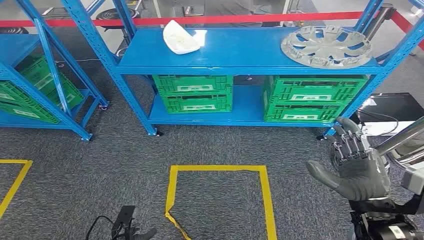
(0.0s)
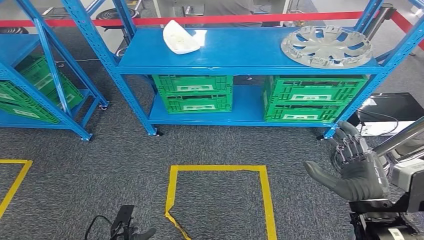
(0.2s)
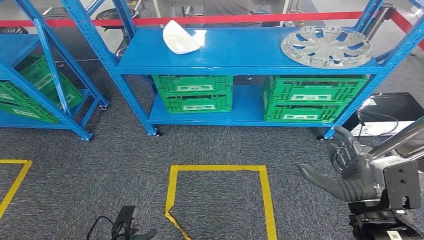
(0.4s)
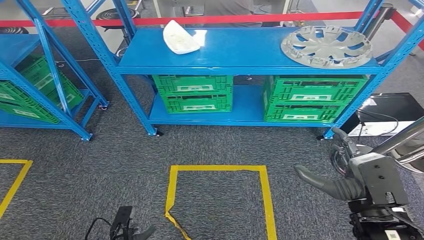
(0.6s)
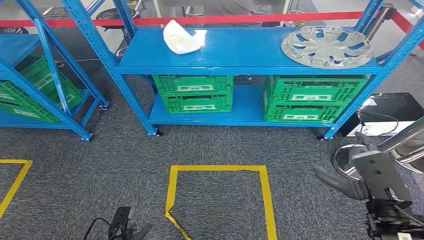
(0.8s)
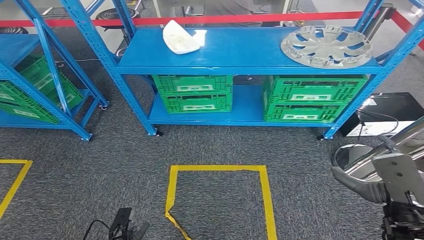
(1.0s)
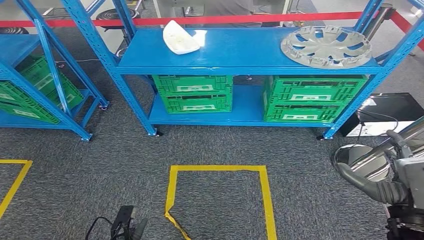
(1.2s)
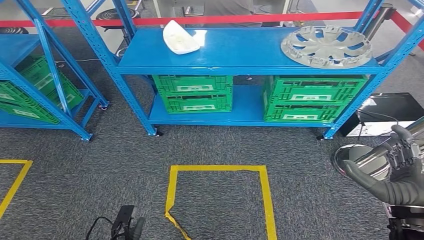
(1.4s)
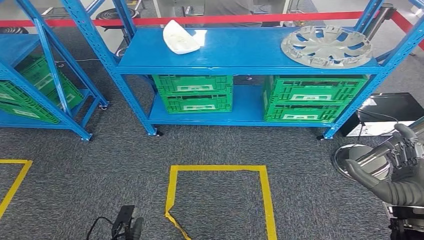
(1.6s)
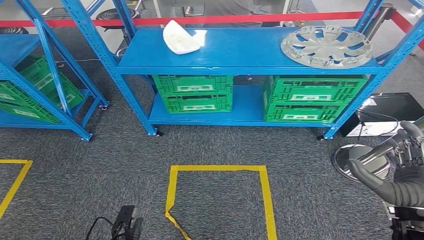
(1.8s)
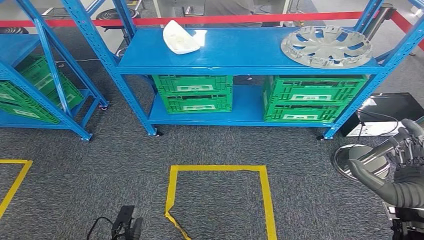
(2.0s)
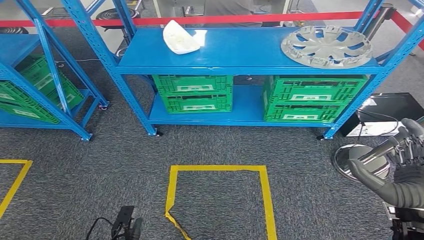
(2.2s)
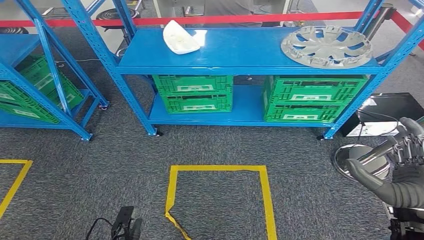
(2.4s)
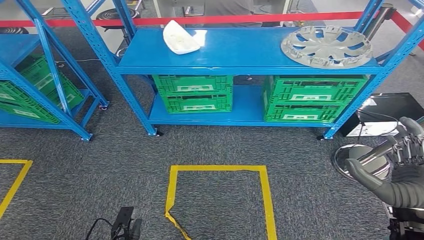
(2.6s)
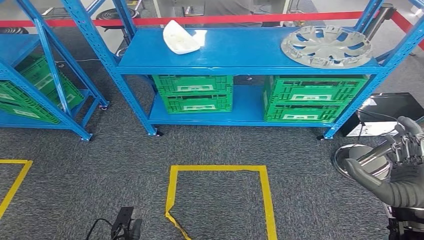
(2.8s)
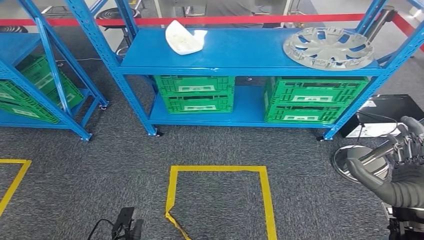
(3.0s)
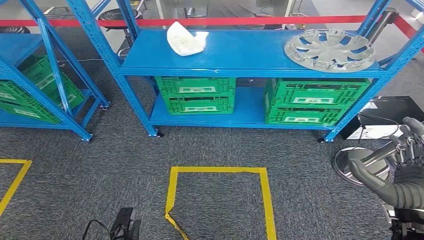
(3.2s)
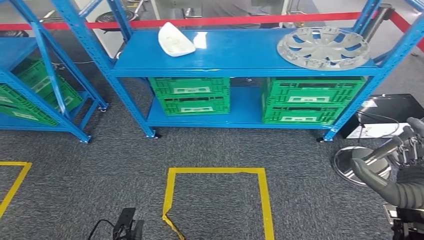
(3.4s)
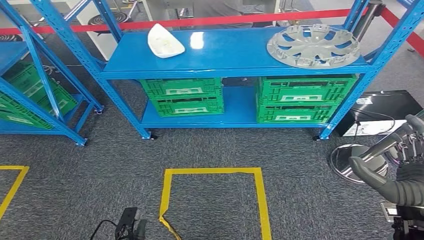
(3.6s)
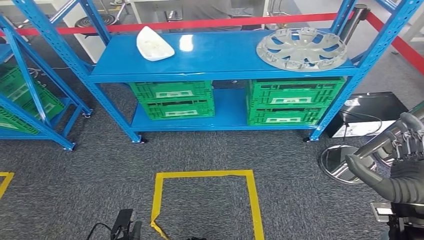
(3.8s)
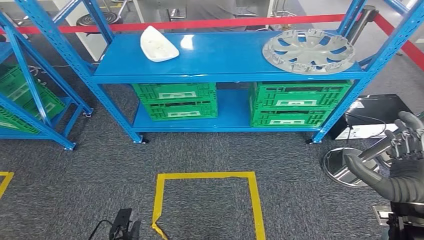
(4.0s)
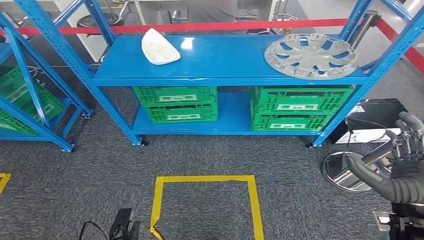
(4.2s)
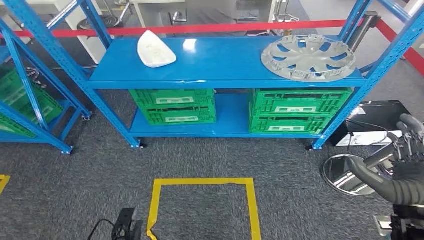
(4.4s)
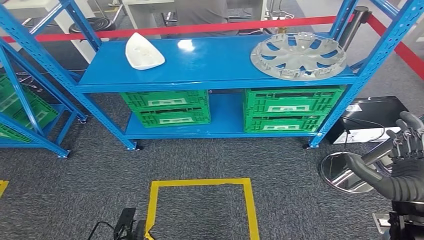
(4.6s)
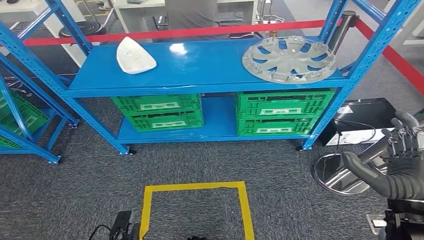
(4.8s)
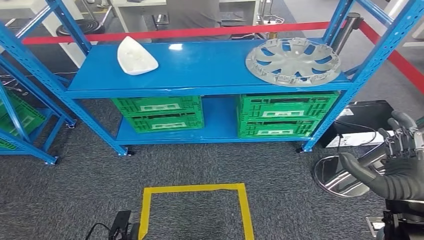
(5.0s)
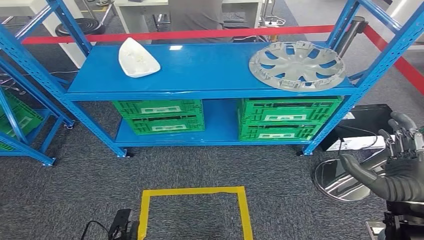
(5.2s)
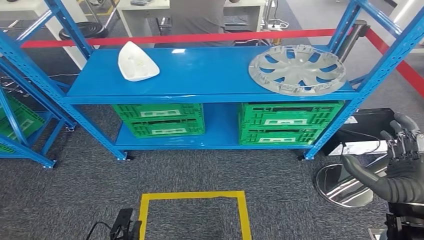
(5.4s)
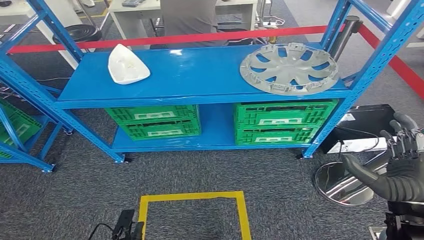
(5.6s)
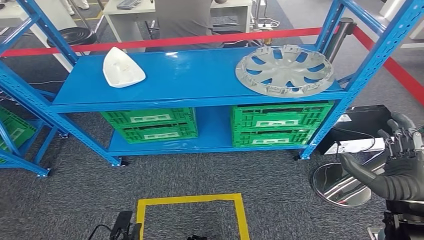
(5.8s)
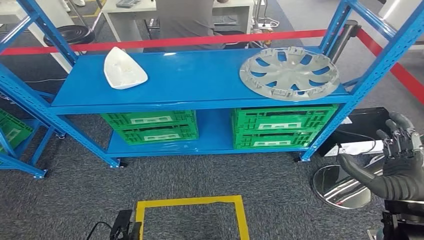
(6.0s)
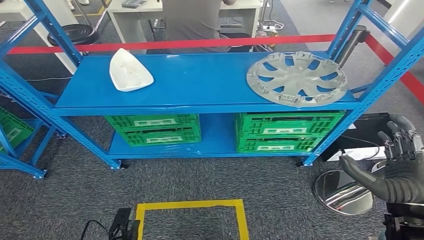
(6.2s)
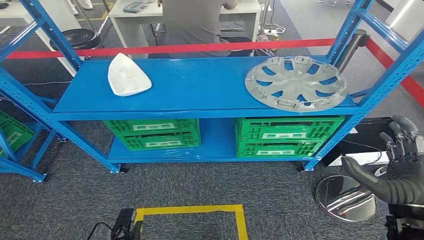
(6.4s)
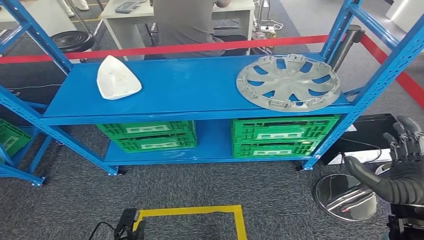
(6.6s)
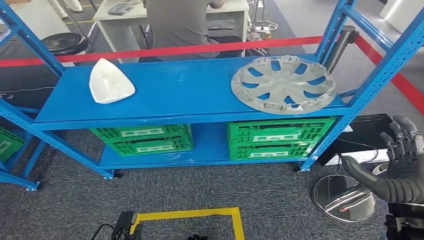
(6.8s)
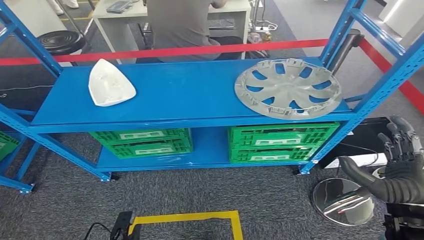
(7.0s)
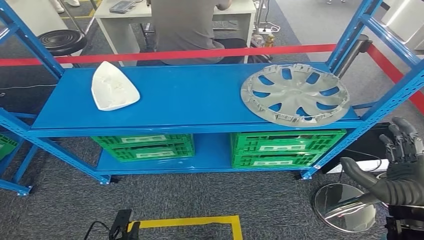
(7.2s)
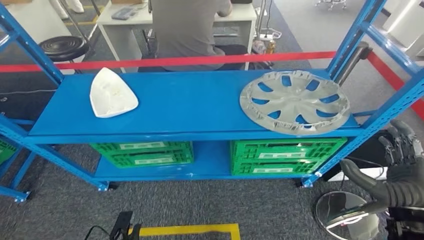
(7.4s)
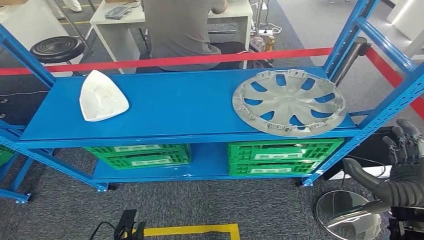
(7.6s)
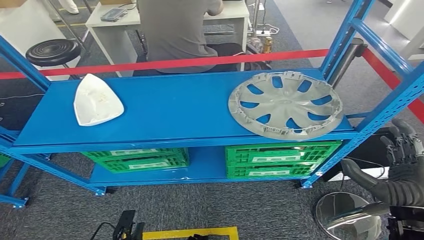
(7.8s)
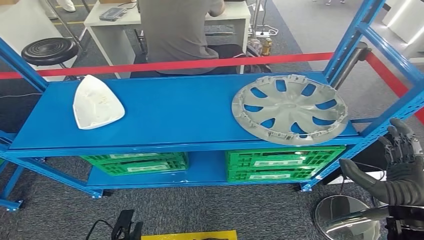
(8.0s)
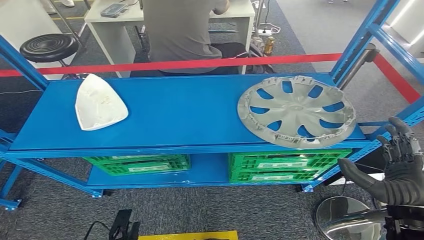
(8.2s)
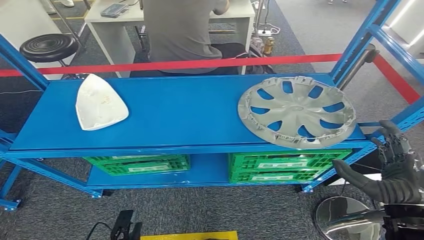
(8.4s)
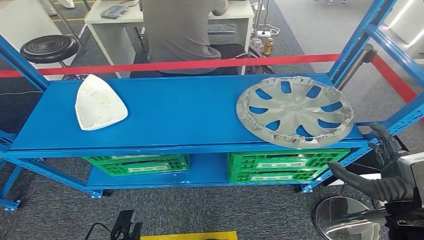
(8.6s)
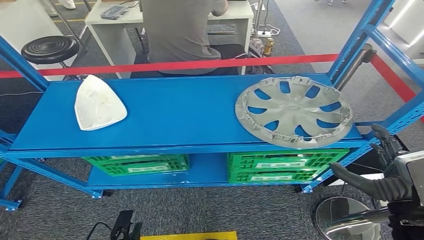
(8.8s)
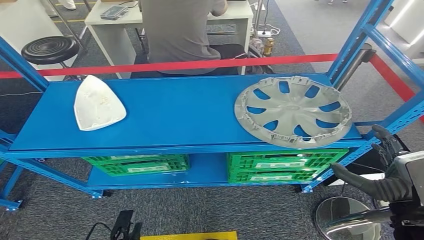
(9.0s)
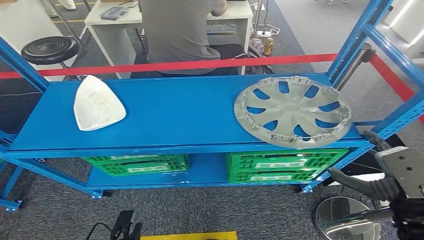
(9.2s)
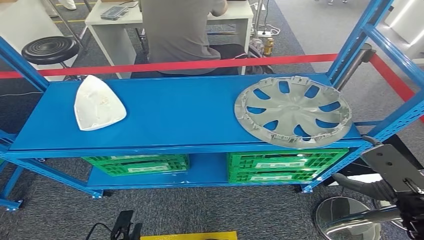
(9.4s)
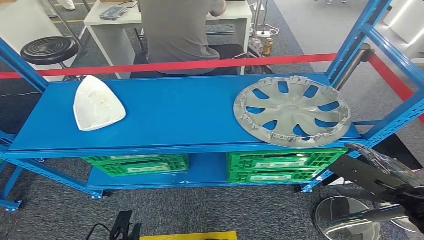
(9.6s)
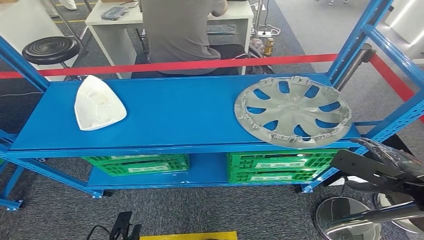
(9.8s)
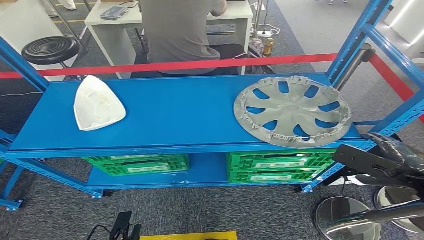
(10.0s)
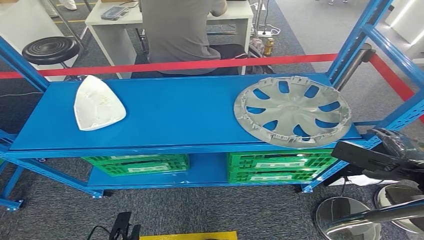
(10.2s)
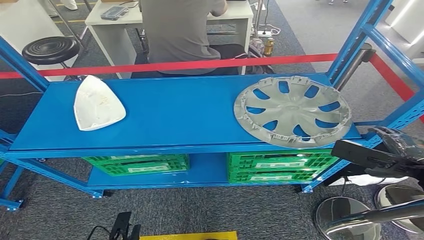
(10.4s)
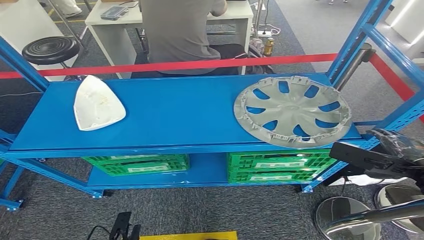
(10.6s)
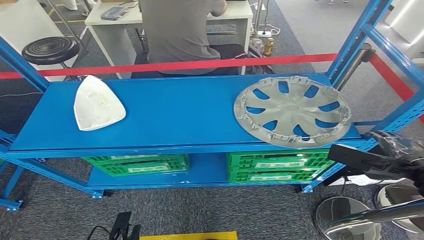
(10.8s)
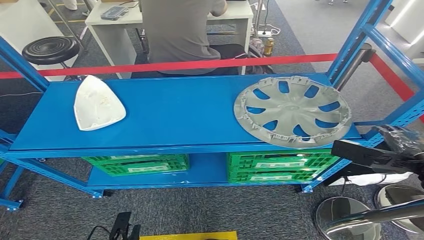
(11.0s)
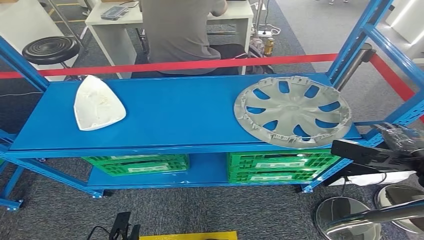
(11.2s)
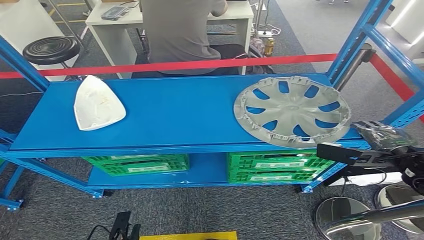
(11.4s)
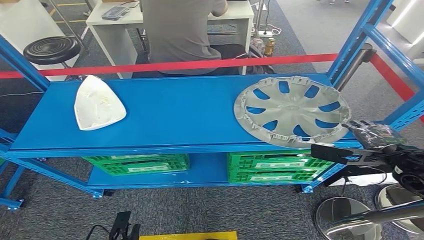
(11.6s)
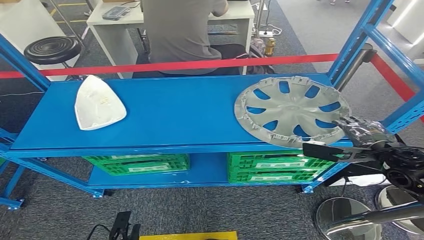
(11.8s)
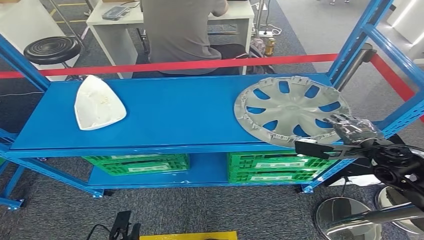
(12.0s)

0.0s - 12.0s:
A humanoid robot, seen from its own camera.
1.6s - 3.0s: There are only small adjustments of the hands.
9.0s - 10.4s: The right hand moves forward and to the right, roughly 10 cm.
10.4s - 12.0s: The right hand moves forward and downward, approximately 10 cm.

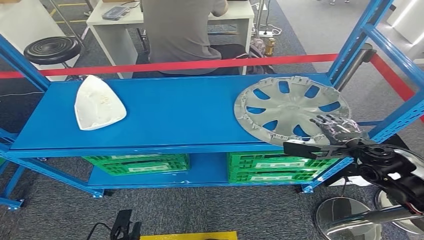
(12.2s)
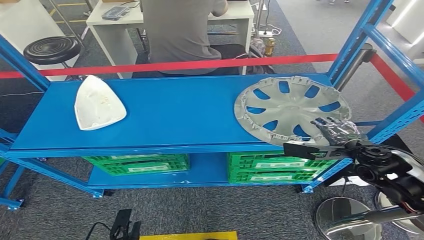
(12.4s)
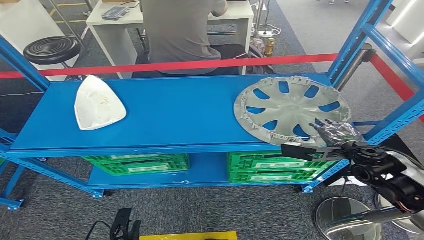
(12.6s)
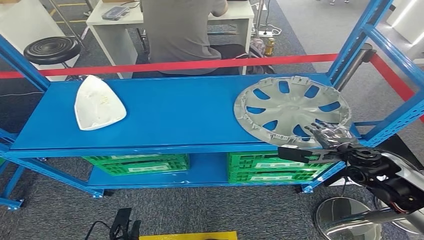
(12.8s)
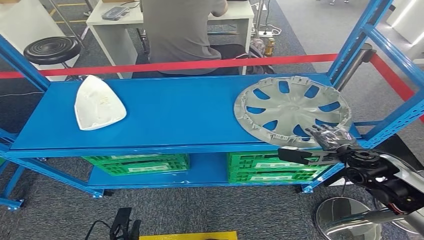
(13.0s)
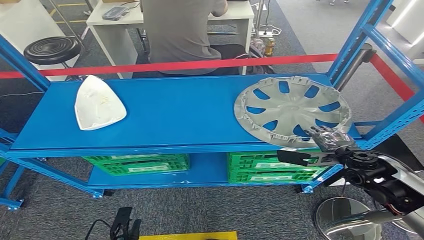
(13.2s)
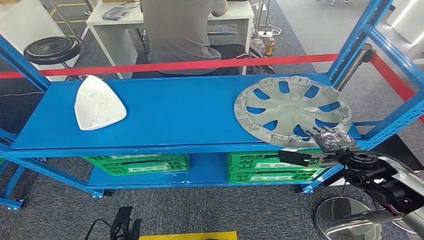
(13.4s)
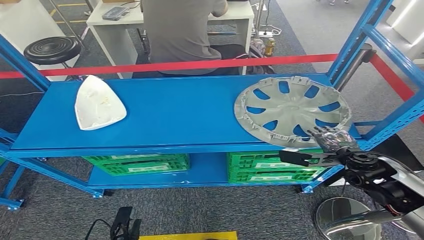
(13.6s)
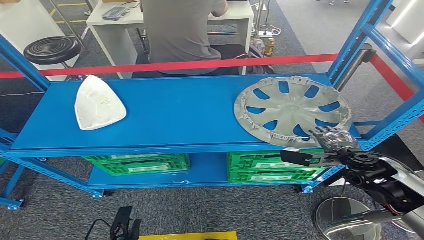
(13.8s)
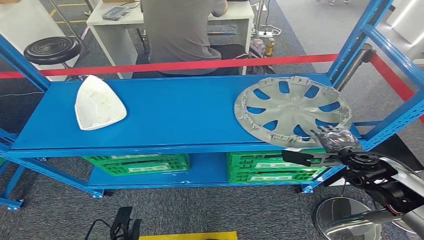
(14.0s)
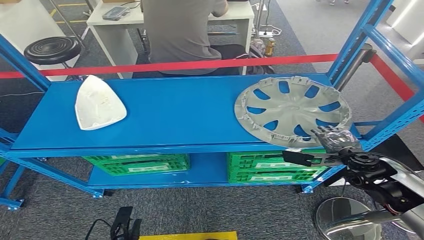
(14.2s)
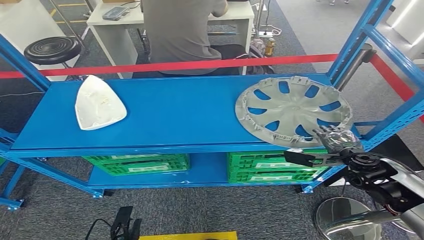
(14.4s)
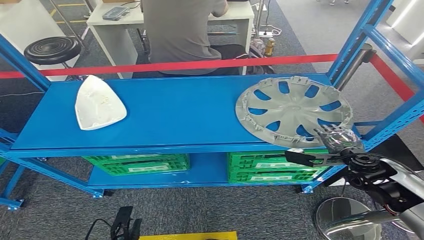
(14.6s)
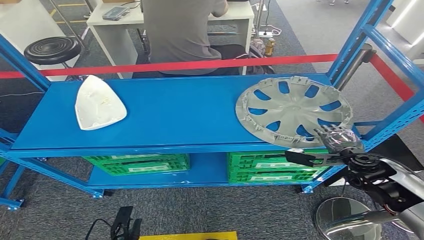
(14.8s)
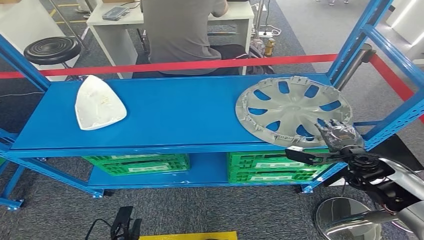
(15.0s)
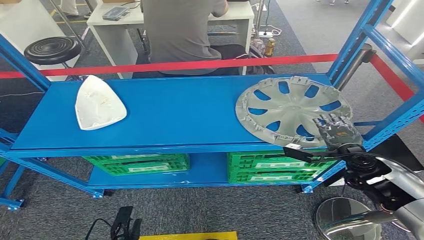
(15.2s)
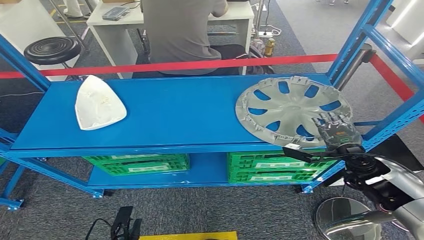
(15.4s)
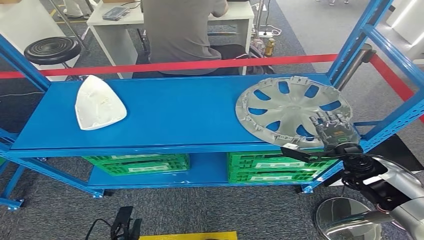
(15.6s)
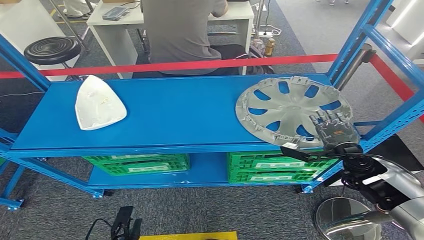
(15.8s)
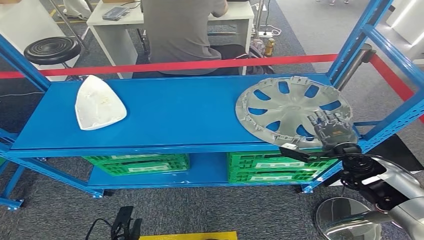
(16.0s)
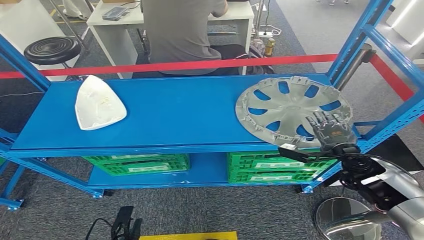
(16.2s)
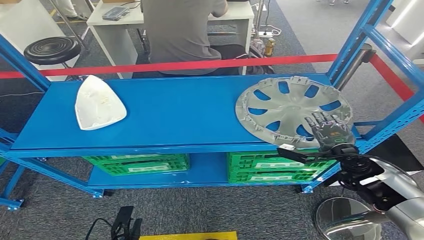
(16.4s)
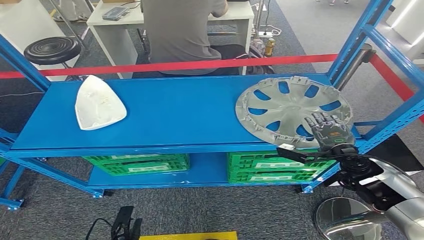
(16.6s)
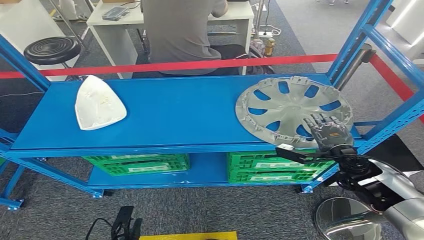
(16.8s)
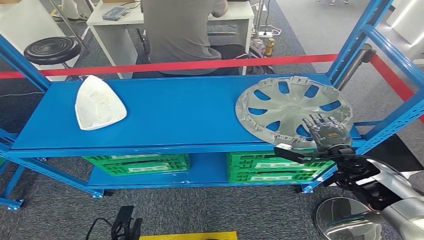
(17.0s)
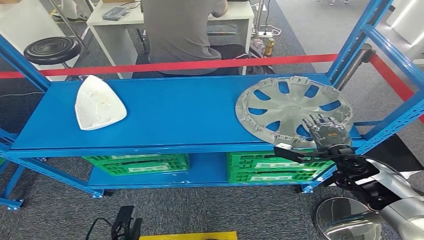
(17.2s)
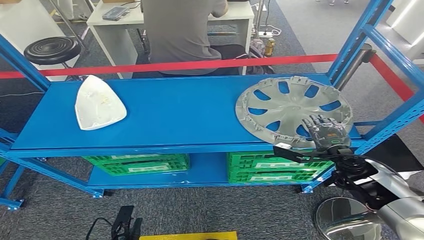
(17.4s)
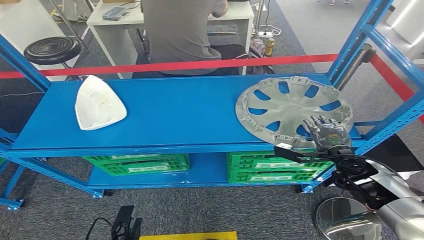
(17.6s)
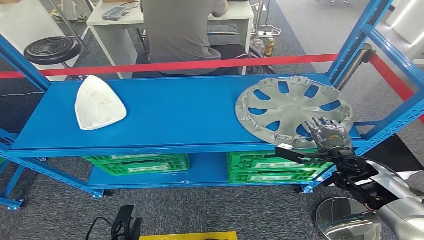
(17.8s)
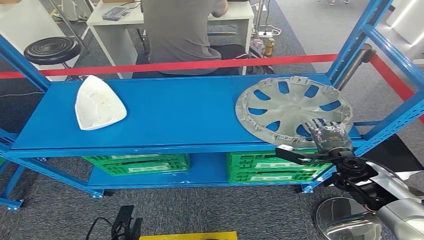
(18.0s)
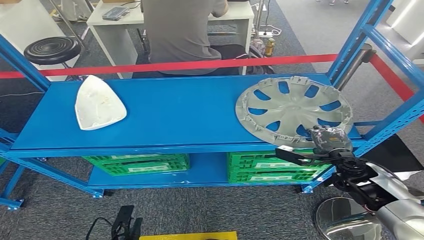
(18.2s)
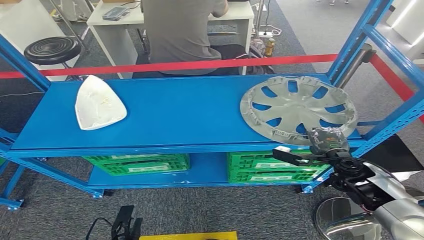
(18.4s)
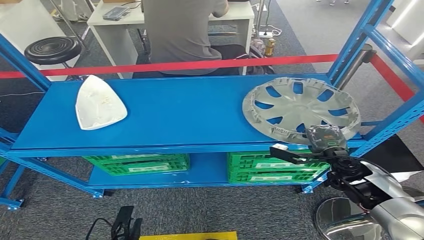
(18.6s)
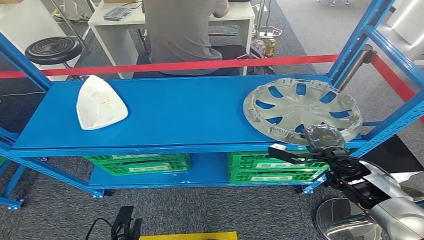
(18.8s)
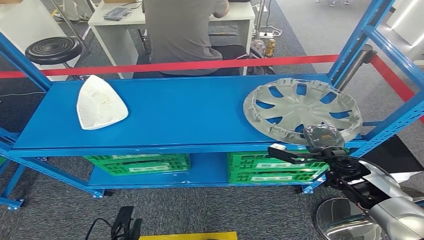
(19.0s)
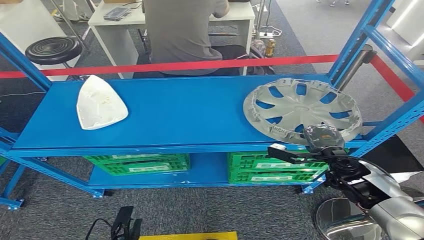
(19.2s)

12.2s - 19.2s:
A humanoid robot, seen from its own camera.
12.2s - 15.0s: There are only small adjustments of the hands.
15.0s - 17.8s: The hands move only a little.
17.8s - 19.2s: Both hands stay about where they are.
